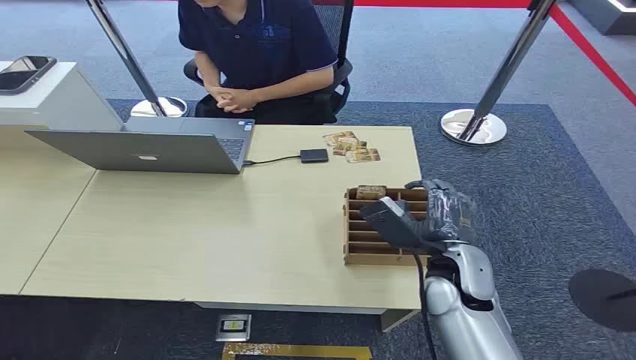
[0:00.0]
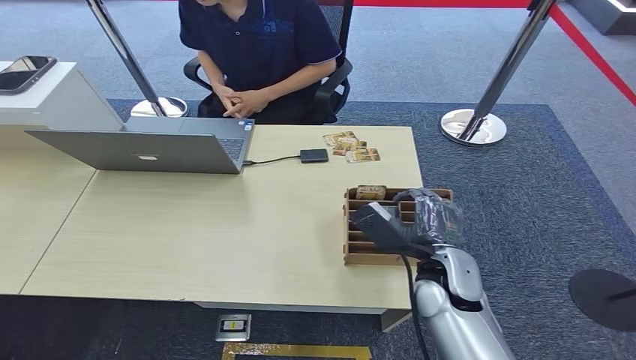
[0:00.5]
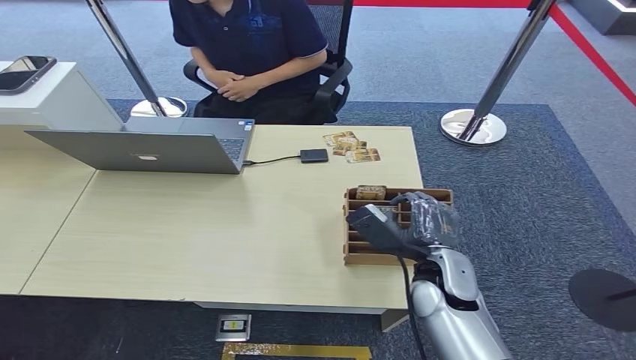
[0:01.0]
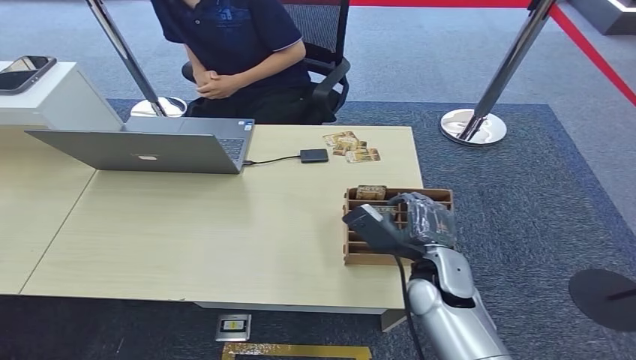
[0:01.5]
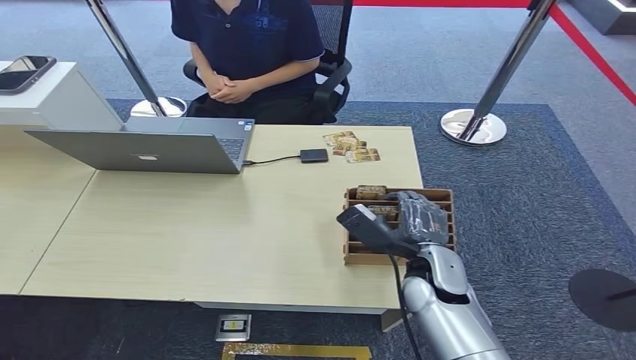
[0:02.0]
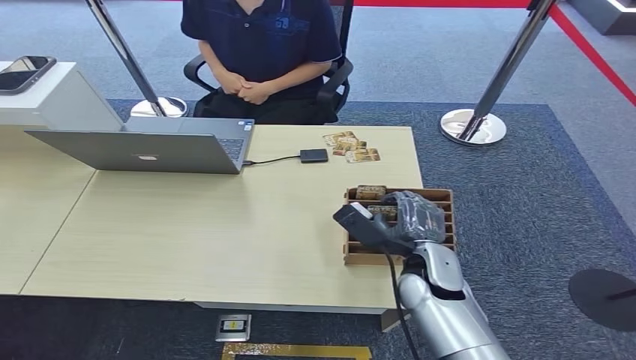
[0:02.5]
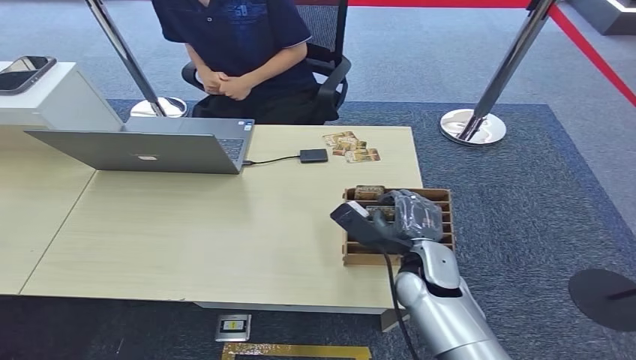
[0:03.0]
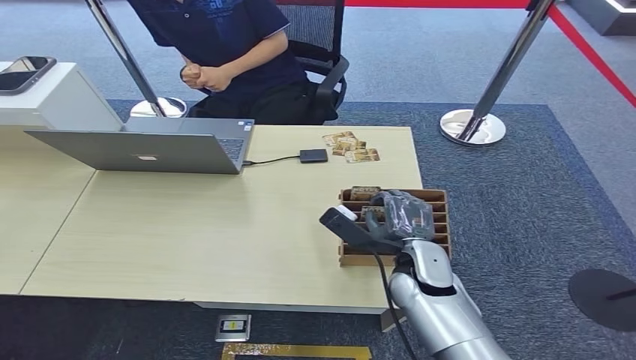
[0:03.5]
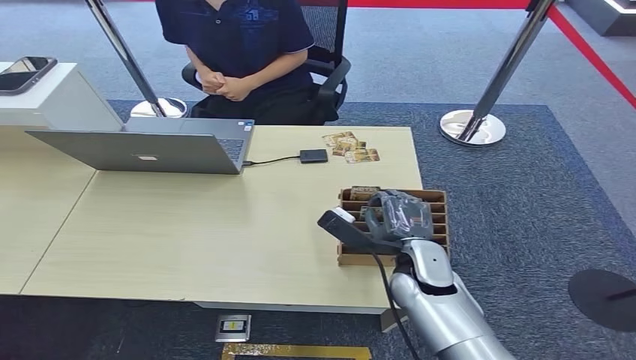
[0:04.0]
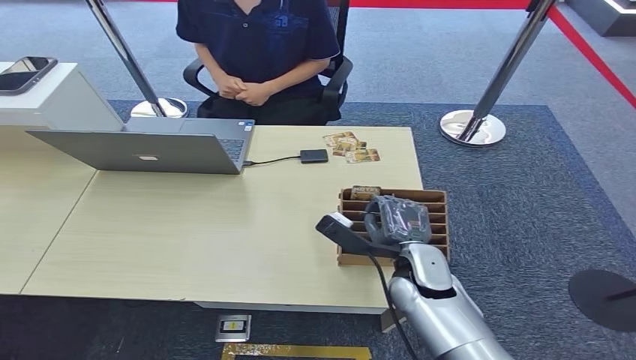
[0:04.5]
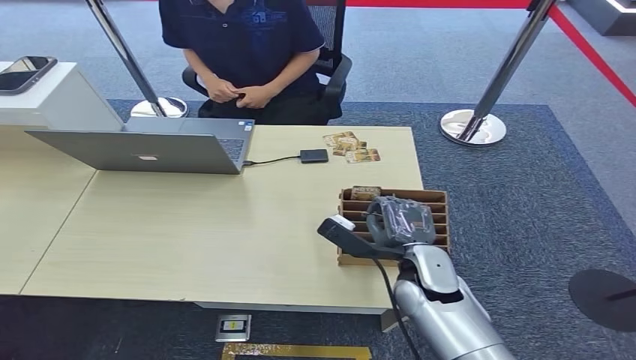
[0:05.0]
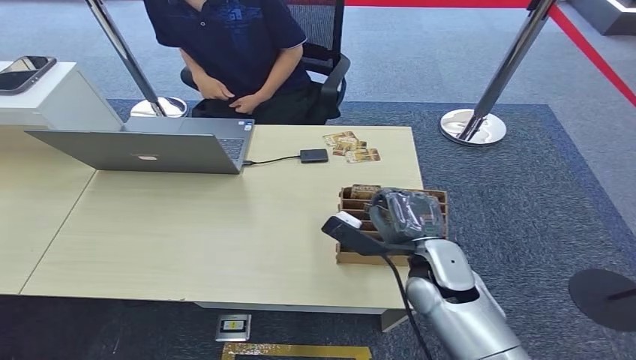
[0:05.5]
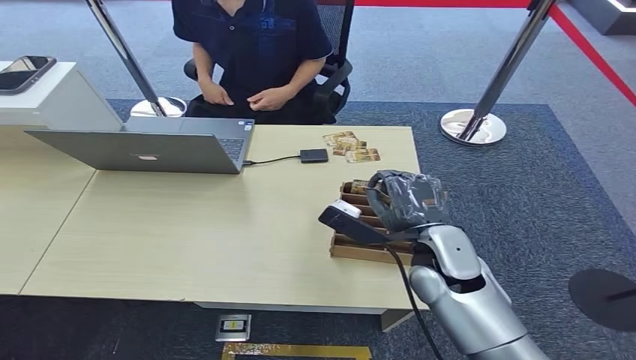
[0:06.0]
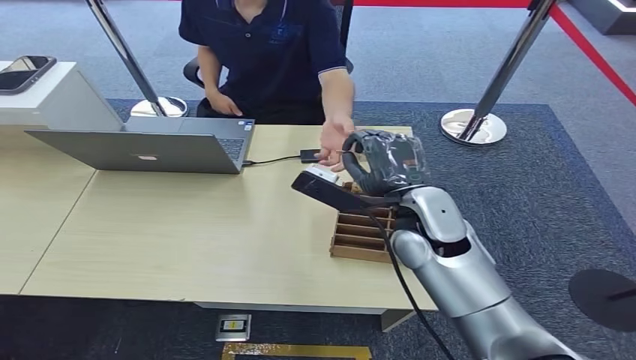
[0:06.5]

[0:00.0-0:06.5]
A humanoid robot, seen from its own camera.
Step, 0:00.0 to 0:05.0: Pick up the room card from the card holder.
Step, 0:05.5 to 0:06.5: Hand the room card to the target.
0:02.0 to 0:04.5: The hands make only small movements.
0:04.5 to 0:06.5: The right hand heads upward and forward, covering approximately 20 cm.
